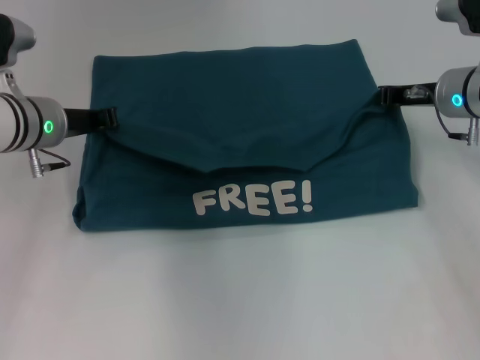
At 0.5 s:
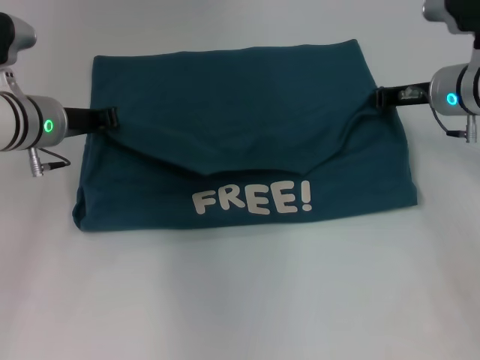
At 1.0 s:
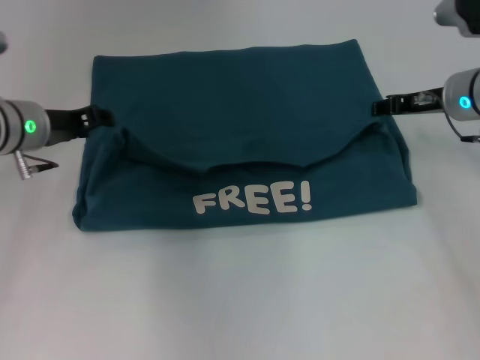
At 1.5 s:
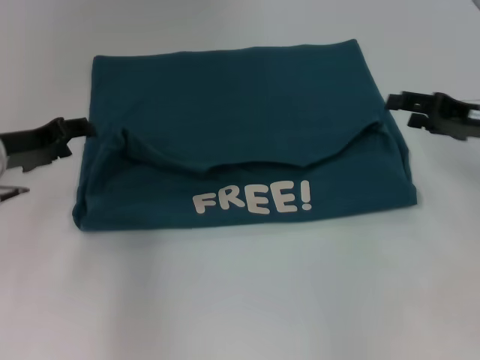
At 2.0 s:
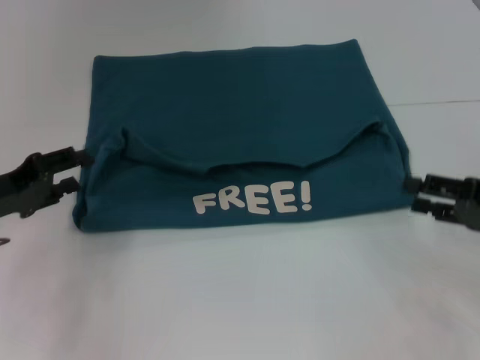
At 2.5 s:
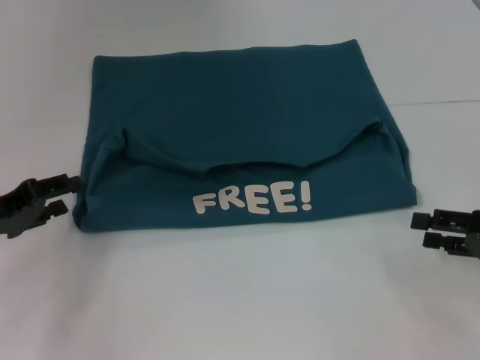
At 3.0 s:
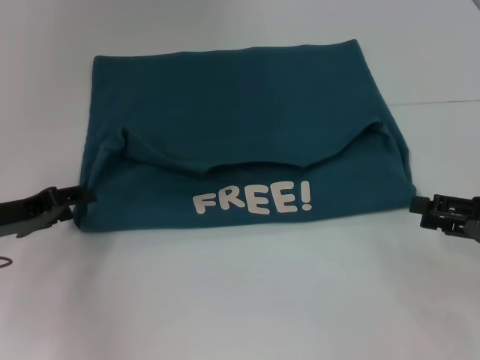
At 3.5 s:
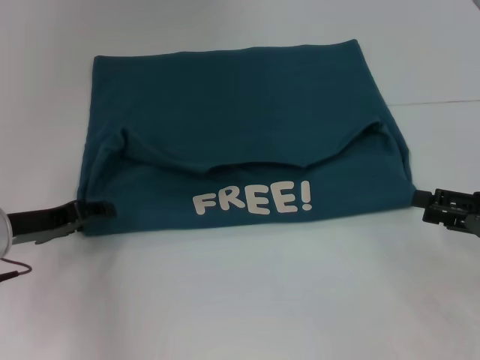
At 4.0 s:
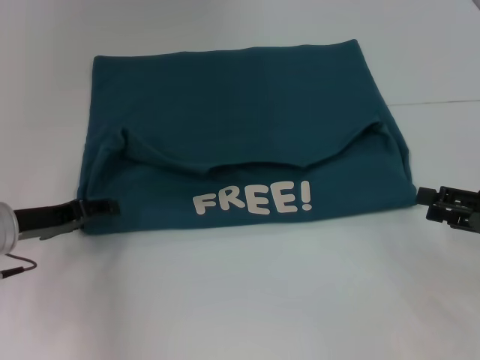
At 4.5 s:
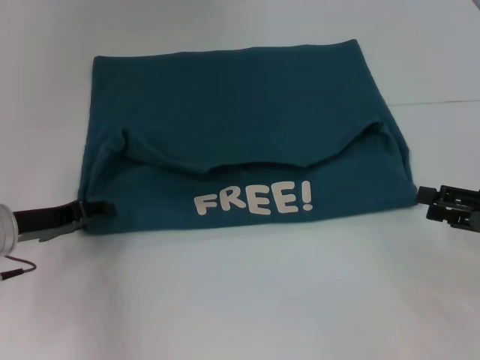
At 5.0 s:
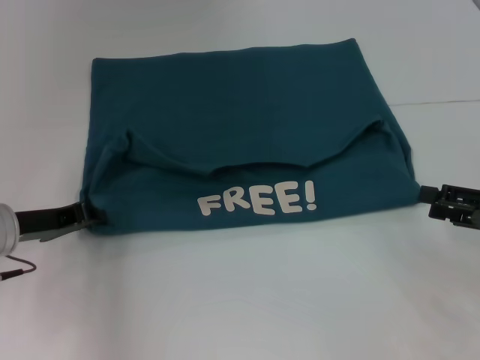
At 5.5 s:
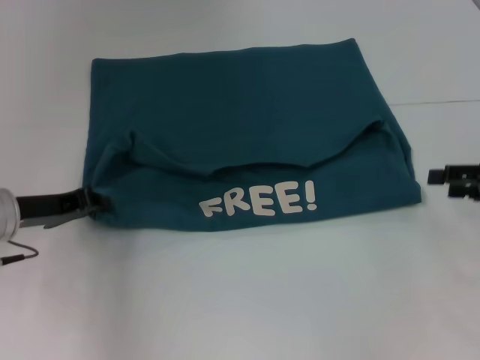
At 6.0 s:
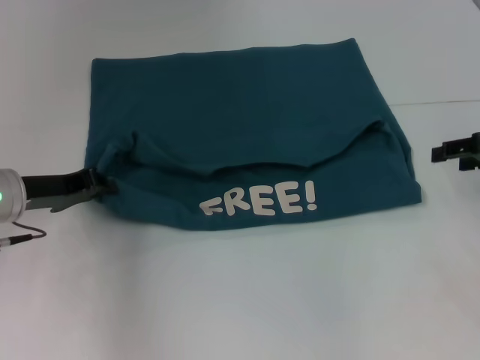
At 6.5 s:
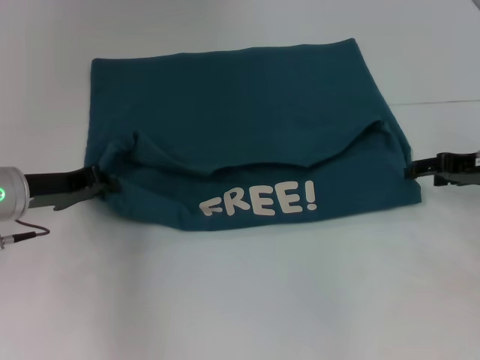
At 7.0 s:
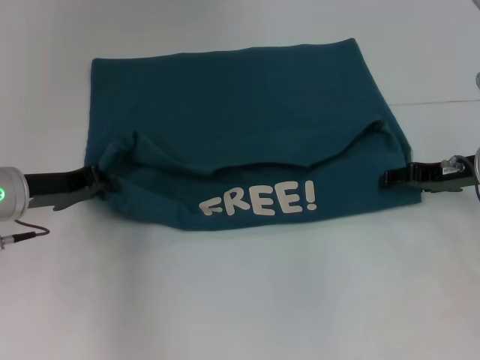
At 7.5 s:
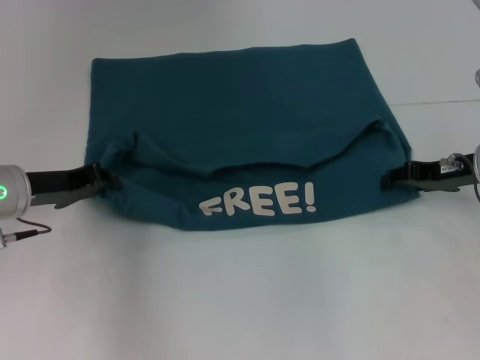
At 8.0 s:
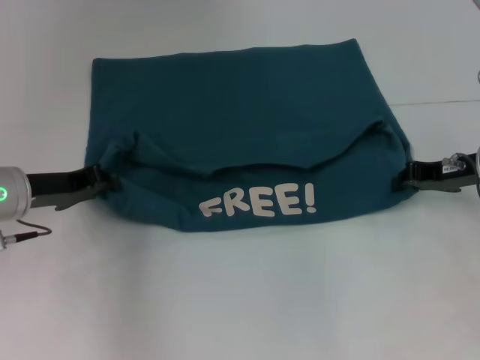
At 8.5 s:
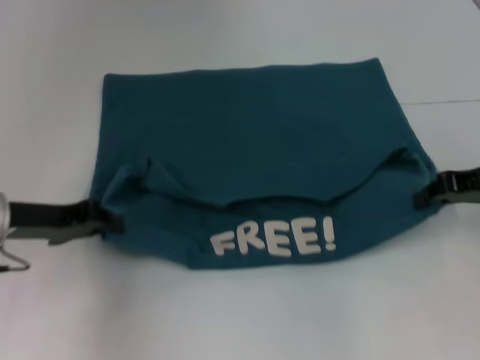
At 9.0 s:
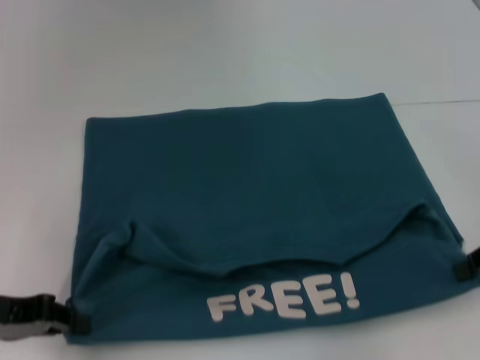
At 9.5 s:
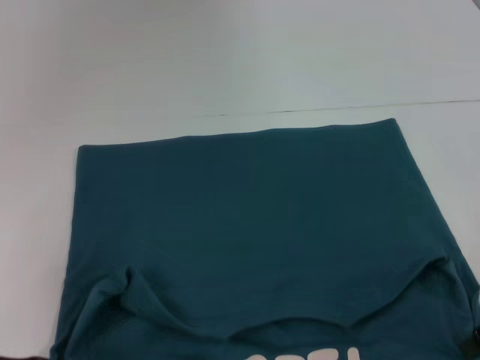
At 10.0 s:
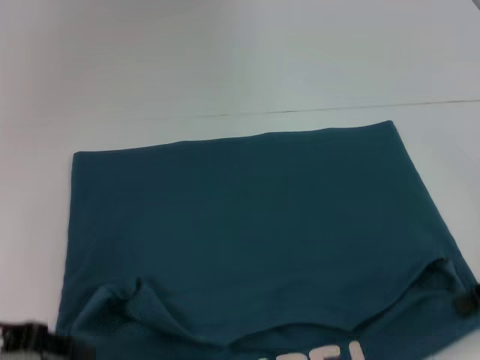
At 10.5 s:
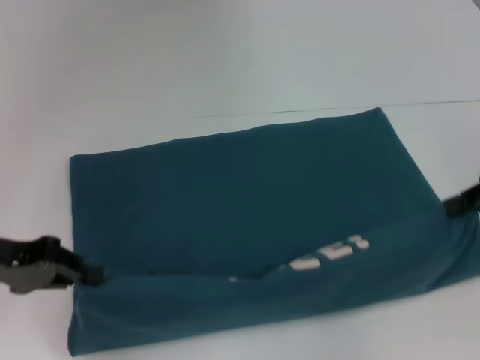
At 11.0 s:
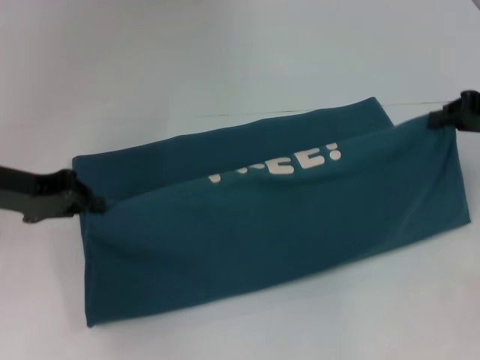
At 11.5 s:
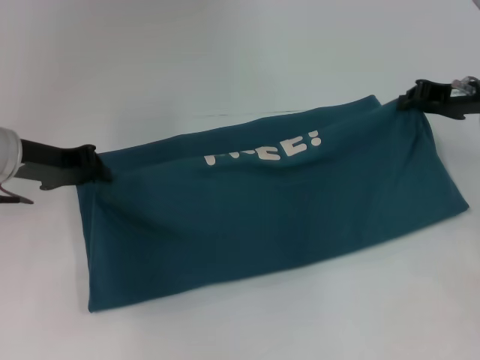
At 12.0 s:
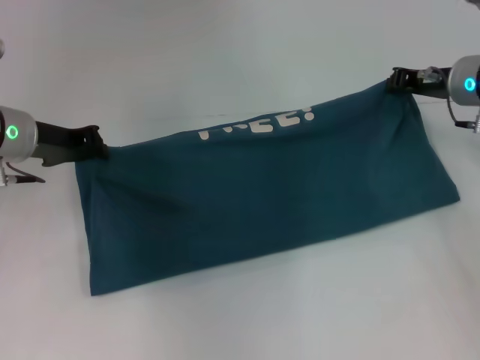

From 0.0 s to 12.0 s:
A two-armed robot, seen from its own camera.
Step, from 1.5 s to 9.5 s: Pull the clothes with your left hand.
Step, from 1.5 s to 9.5 s: Pull the clothes with your right hand.
From 0.0 s to 2.0 s: The left gripper shifts about 15 cm backward and to the left, and opens up, while the right gripper shifts some 20 cm backward and to the right, and opens.
From 2.0 s to 4.0 s: The left gripper shifts by some 5 cm.
From 4.0 s to 6.0 s: The right gripper travels forward and upward by some 10 cm; the left gripper closes.
From 6.0 s to 8.0 s: The right gripper is displaced to the left and downward by about 10 cm, and closes.
From 8.0 s to 10.0 s: Both grippers travel together backward, approximately 10 cm.
From 10.0 s to 12.0 s: The left gripper shifts some 20 cm forward, while the right gripper moves forward and to the left, approximately 20 cm.

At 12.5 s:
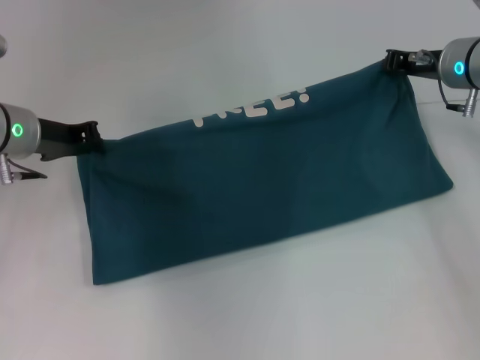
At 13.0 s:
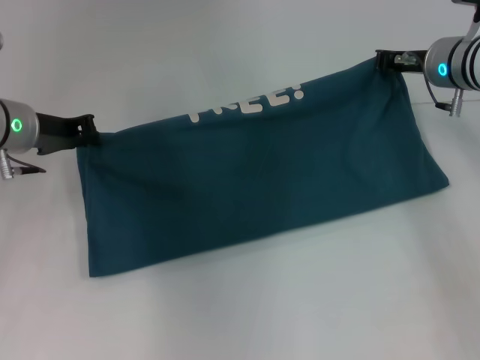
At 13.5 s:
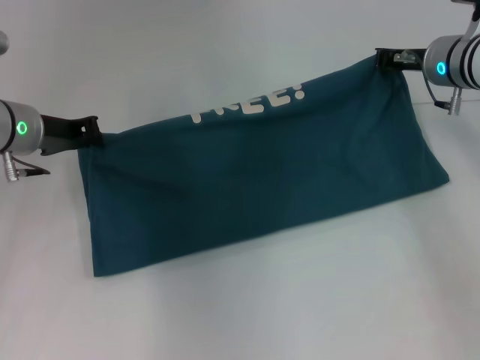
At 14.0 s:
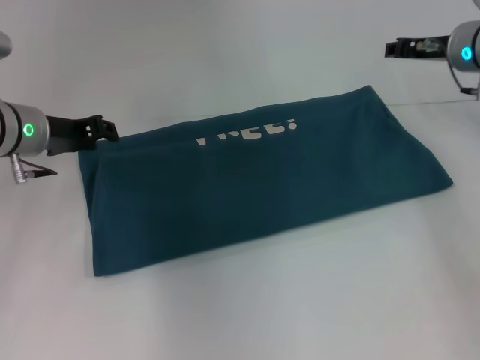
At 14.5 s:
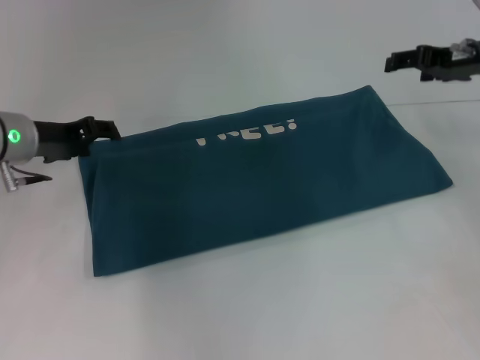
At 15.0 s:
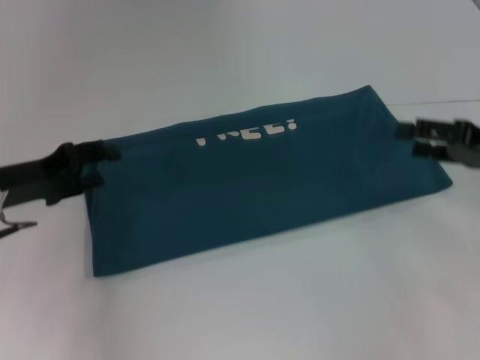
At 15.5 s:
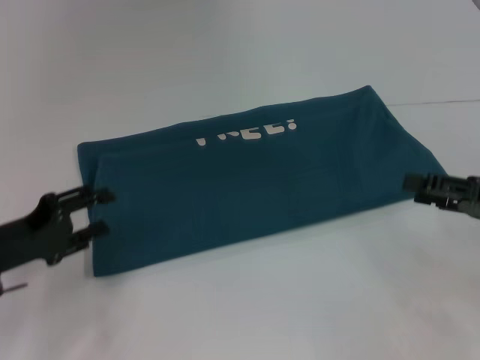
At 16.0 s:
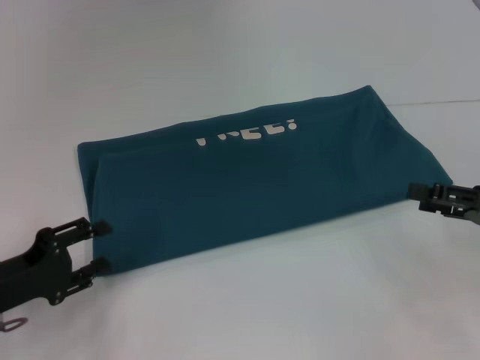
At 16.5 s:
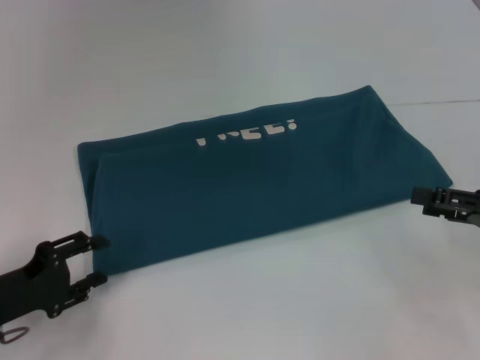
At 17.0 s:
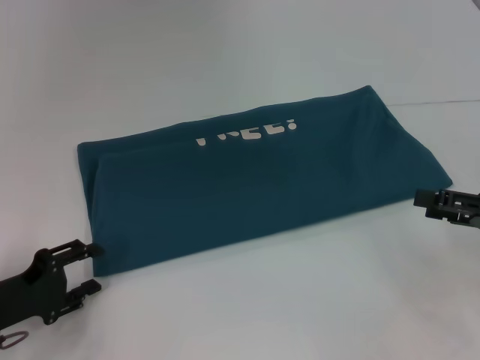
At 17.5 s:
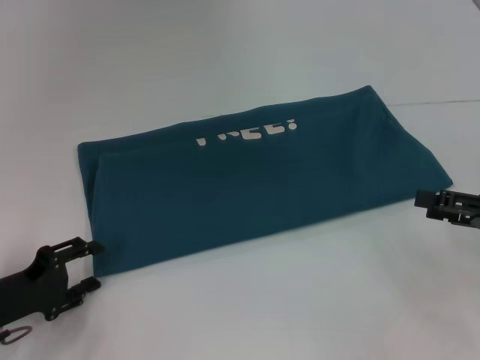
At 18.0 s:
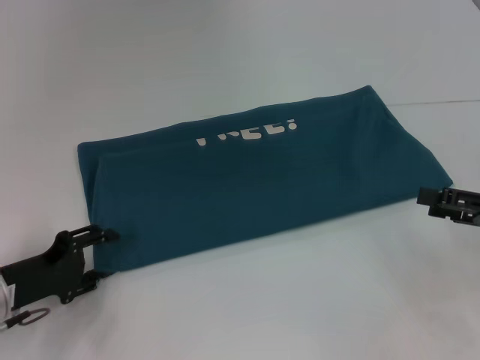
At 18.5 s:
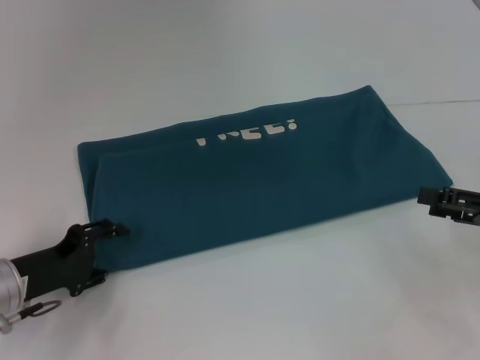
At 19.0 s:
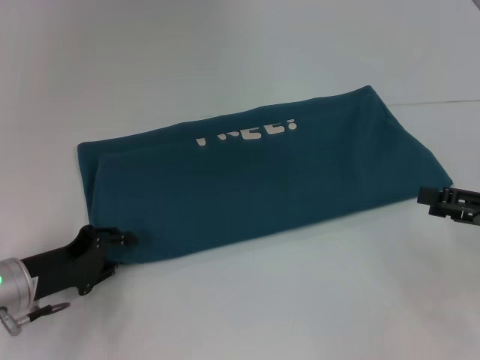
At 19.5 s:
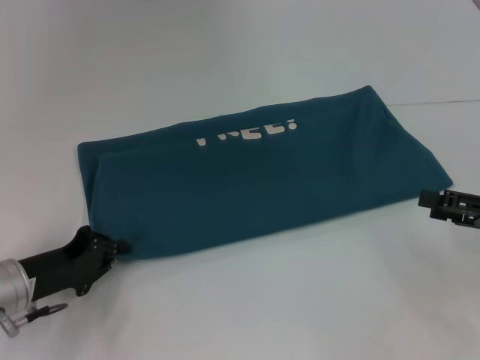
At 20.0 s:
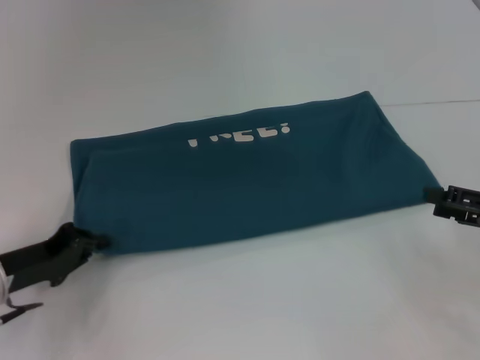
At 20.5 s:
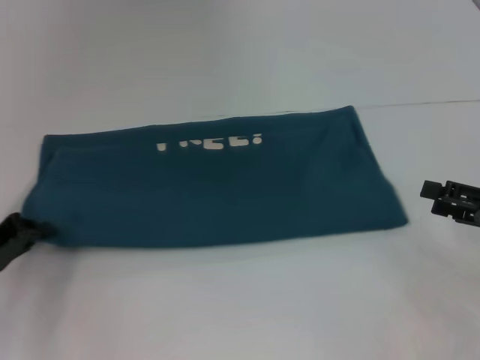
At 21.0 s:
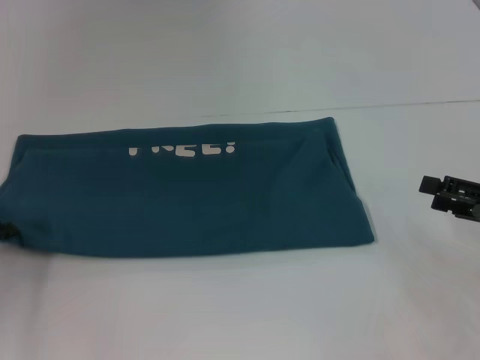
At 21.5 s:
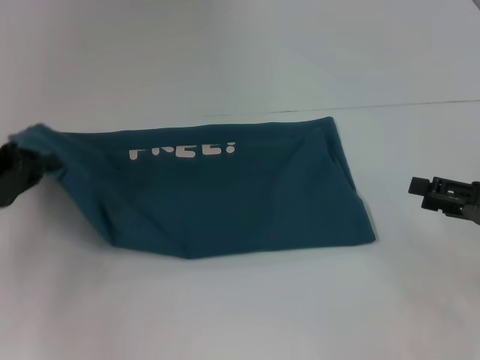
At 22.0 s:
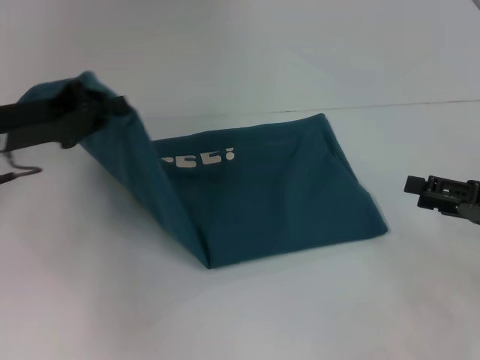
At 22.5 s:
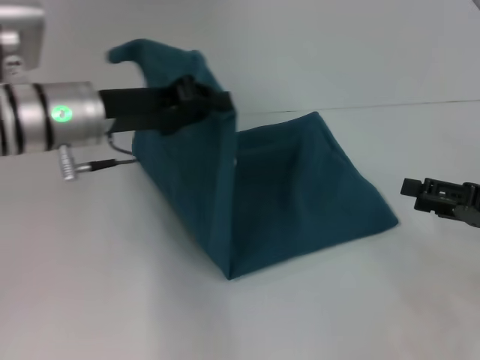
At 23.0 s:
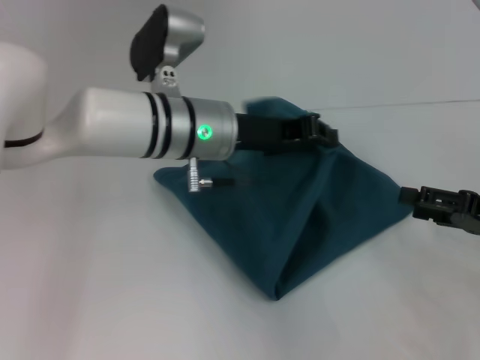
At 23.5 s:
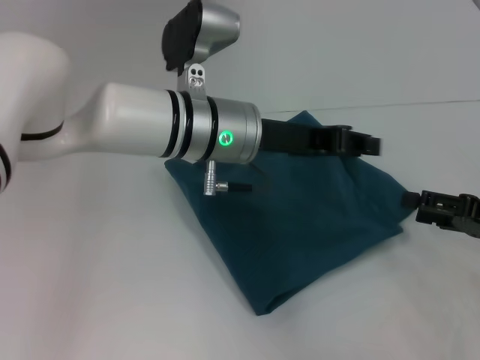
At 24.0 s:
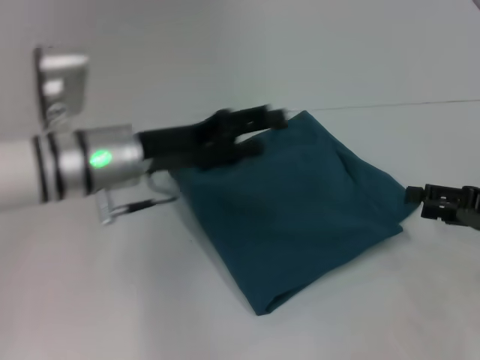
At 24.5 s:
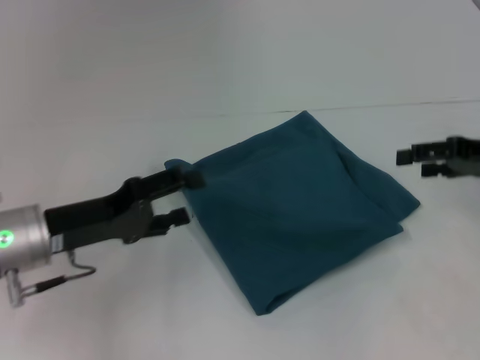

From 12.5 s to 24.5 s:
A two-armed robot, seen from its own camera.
Step, from 12.5 s to 23.0 s: Fold the clothes to the left.
From 12.5 s to 14.5 s: The left gripper opens up. The right gripper ends up roughly 5 cm from where it was, and opens its fingers.
From 14.5 s to 16.5 s: Both grippers move backward and downward, roughly 20 cm.
From 16.5 s to 18.5 s: The grippers stay close to where they were, moving slightly.
From 18.5 s to 20.5 s: The left gripper goes roughly 5 cm to the left, and closes up.
From 20.5 s to 22.5 s: The left gripper moves to the right, upward and forward, approximately 20 cm.
From 22.5 s to 24.5 s: The left gripper is displaced downward and backward by approximately 10 cm, moves about 15 cm to the right and comes back, and opens up. The right gripper is displaced forward and upward by roughly 10 cm.

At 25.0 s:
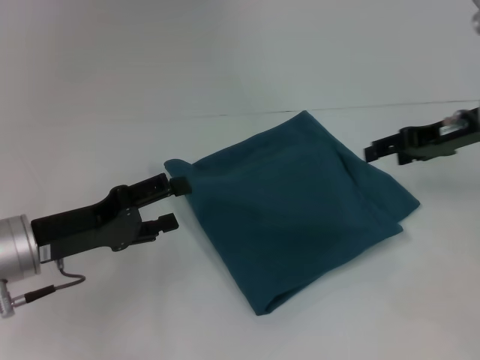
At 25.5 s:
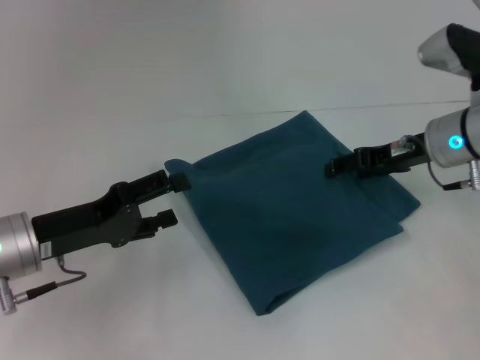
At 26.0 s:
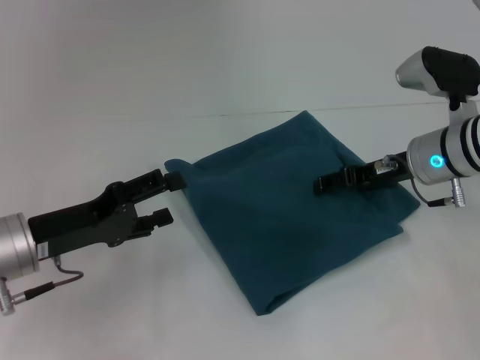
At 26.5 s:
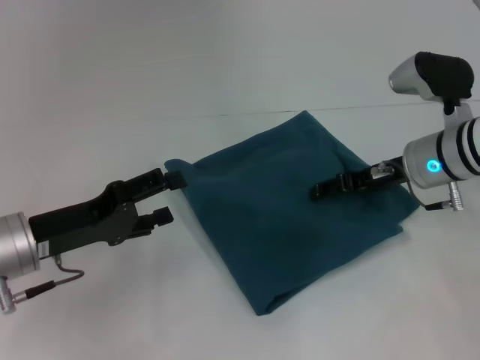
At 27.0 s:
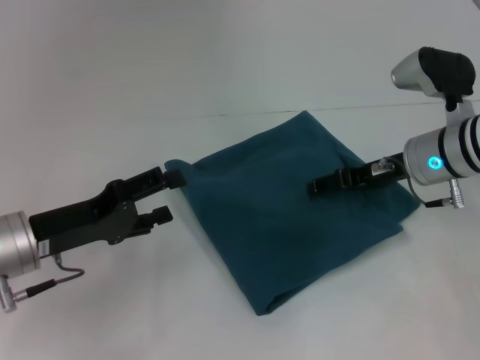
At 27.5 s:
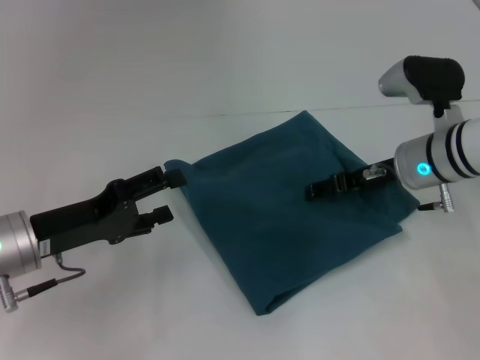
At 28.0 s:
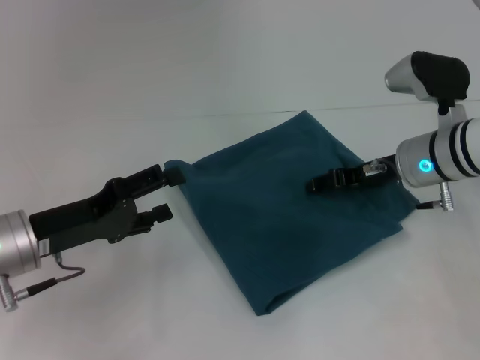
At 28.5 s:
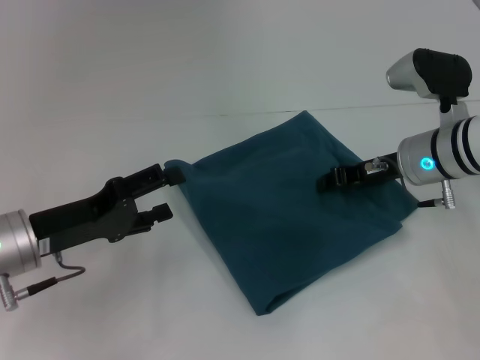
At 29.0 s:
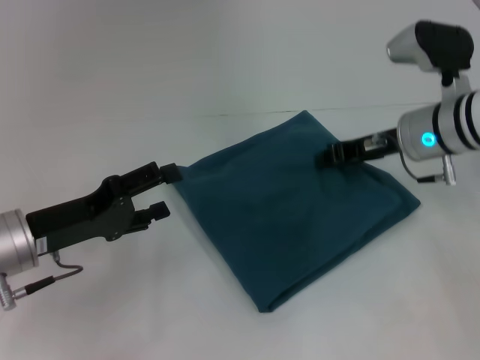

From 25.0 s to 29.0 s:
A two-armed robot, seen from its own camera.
From 25.0 s to 27.0 s: The right gripper is displaced to the left and downward by approximately 10 cm.
From 27.0 s to 29.0 s: The right gripper closes.
